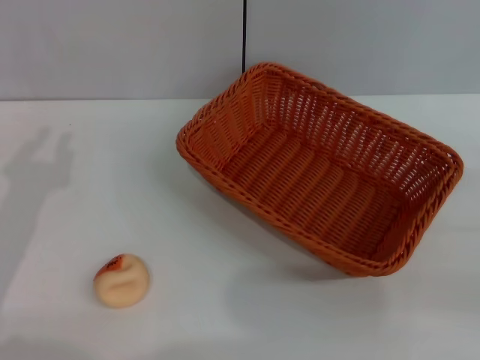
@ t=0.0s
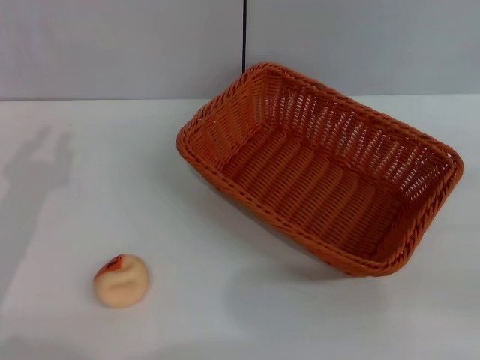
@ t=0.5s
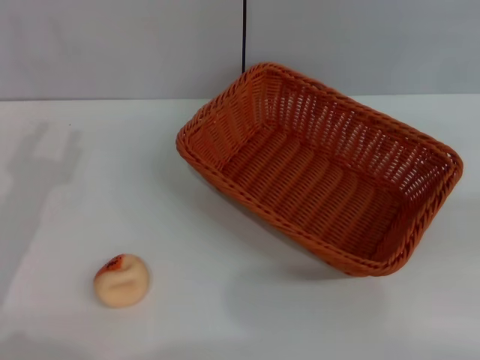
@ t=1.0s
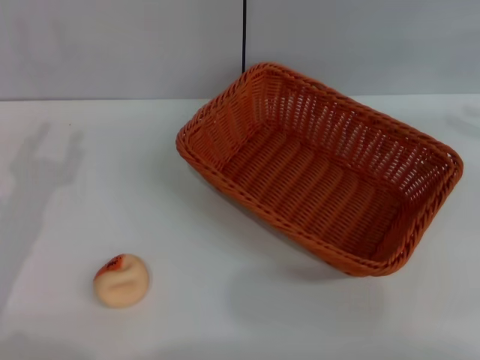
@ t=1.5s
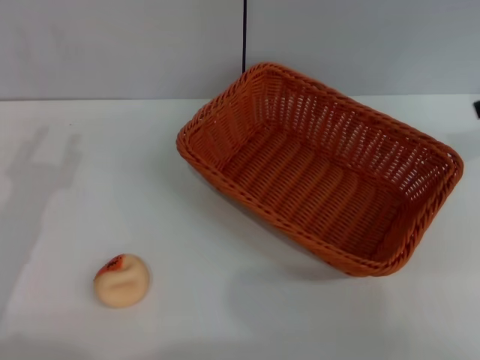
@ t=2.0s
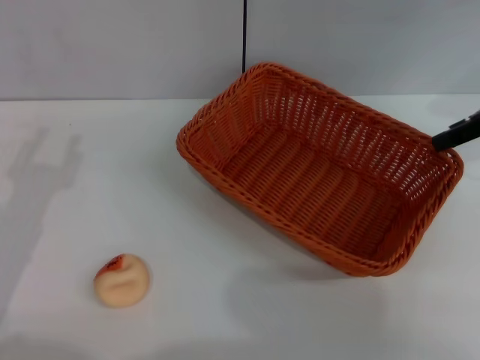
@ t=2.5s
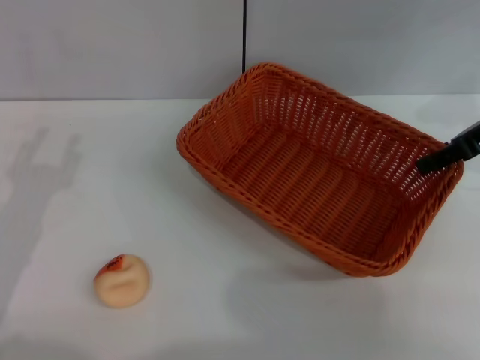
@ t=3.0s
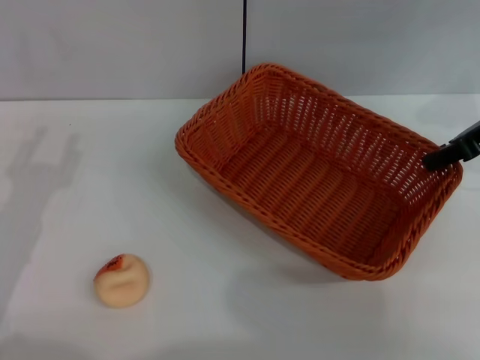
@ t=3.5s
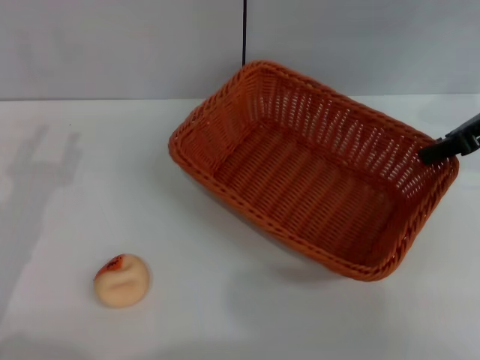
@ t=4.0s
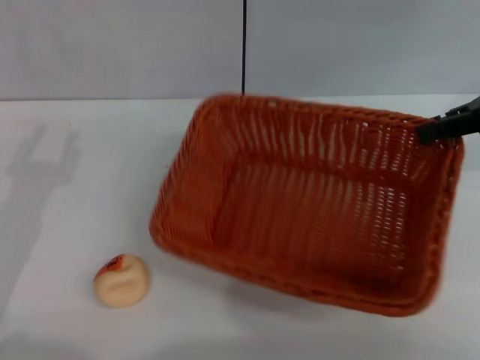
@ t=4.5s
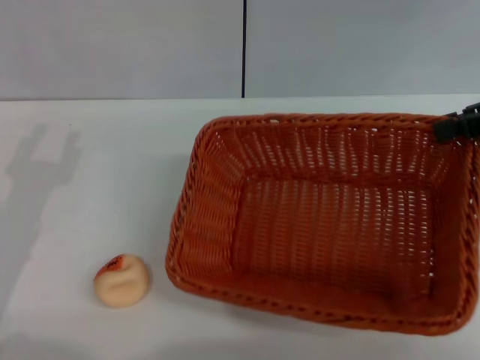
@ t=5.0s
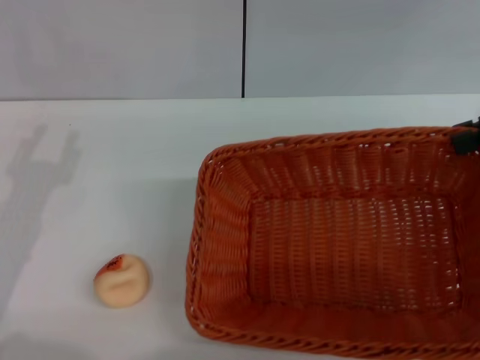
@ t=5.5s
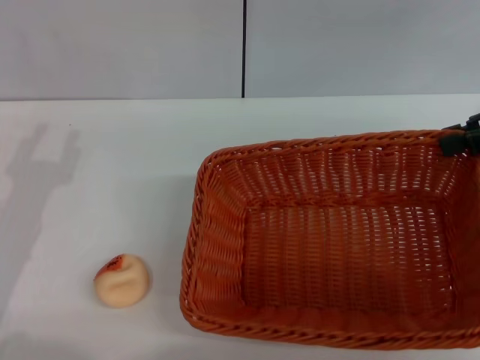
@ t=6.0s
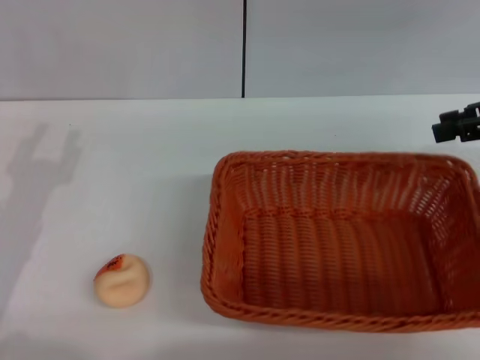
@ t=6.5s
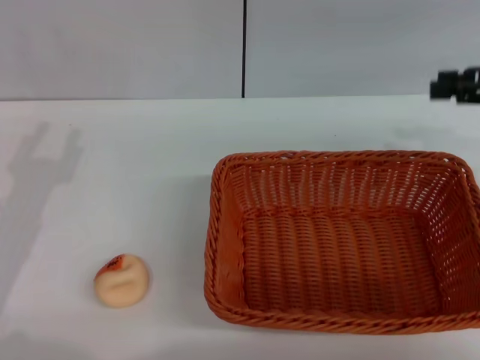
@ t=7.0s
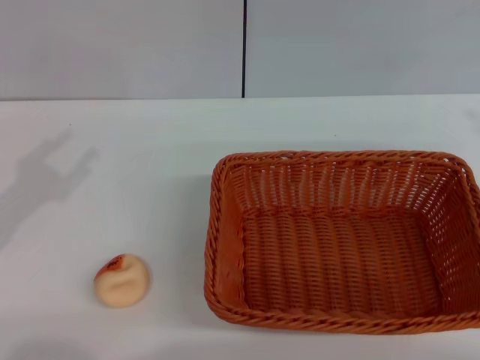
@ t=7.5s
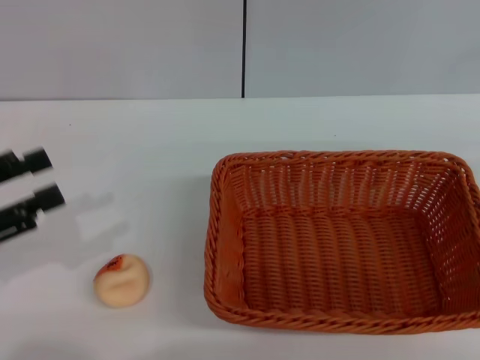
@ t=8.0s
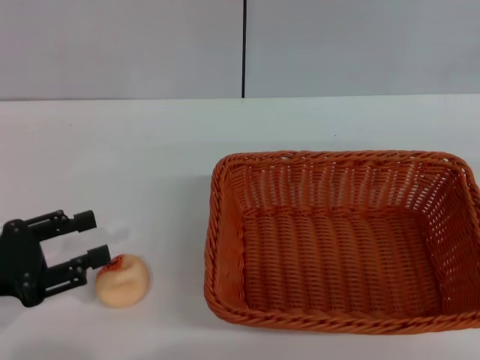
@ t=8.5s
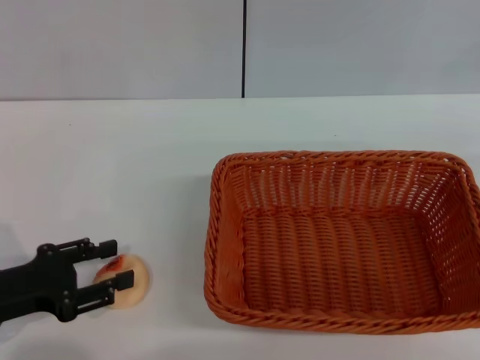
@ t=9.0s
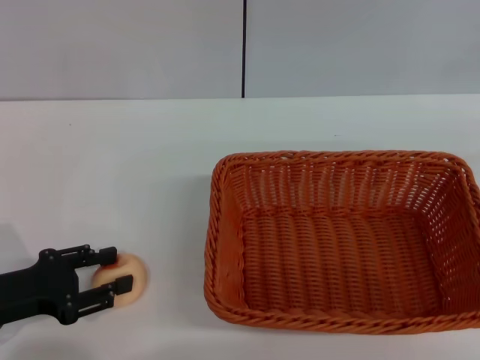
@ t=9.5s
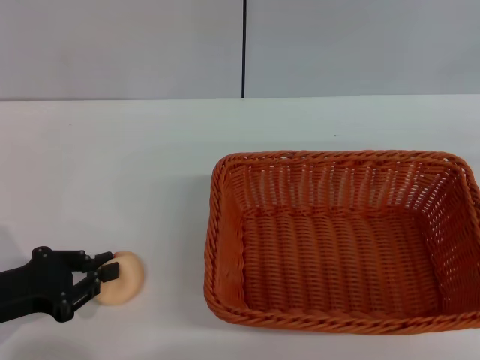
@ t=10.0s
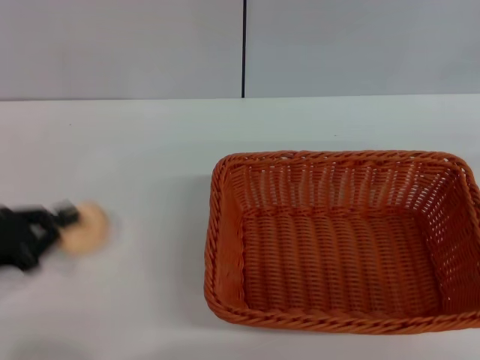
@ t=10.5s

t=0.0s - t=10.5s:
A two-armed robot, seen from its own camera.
Step, t=0.0s - t=6.5s: Move the basket to the center of view with the right gripper.
t=0.0s - t=2.0s: The right gripper is displaced forward and upward by roughly 20 cm.
t=2.0s - t=4.0s: The right gripper travels to the left by some 5 cm, and closes.
t=4.0s - t=6.5s: The right gripper shifts by roughly 5 cm, and opens up.
t=6.5s - t=8.5s: The right gripper heads backward, downward and to the right, covering approximately 15 cm, and opens its fingers.
t=8.5s - t=10.5s: The left gripper closes.

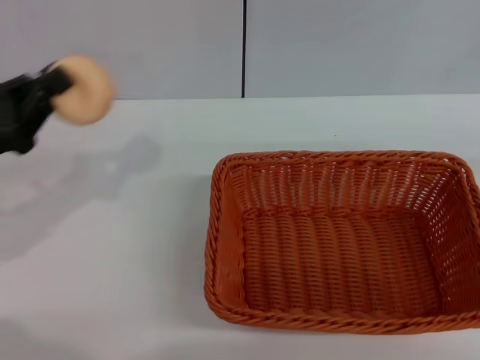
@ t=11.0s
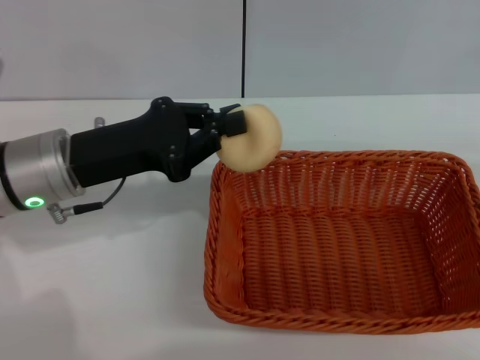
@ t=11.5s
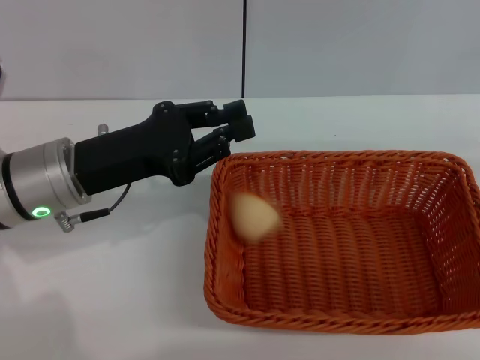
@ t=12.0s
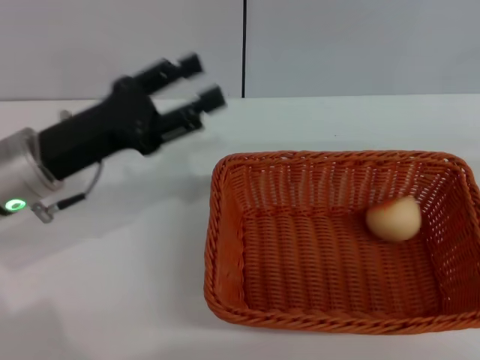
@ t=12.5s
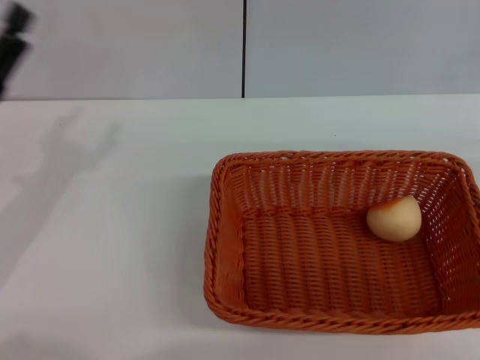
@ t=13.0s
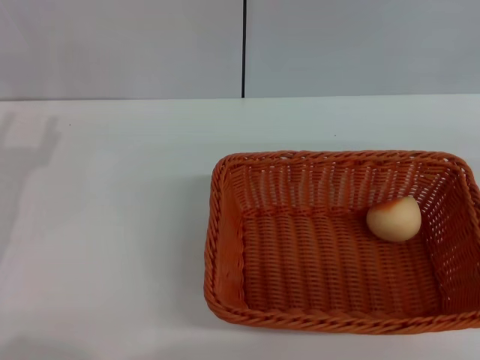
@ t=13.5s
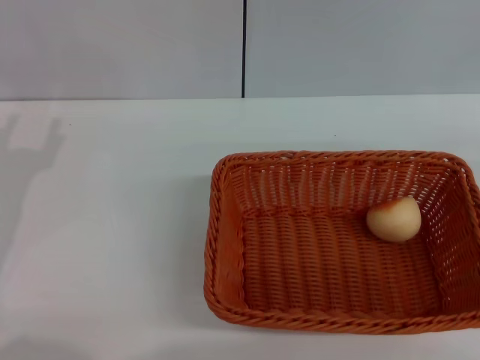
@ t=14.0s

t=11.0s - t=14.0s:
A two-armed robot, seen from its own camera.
Step, t=11.0s - t=12.0s: Place the egg yolk pastry into the basket with the left gripper.
t=11.0s - t=12.5s: The left gripper is displaced to the right and forward by some 15 cm, and opens.
t=12.5s - t=14.0s: The left gripper moves to the left and backward, approximately 10 cm.

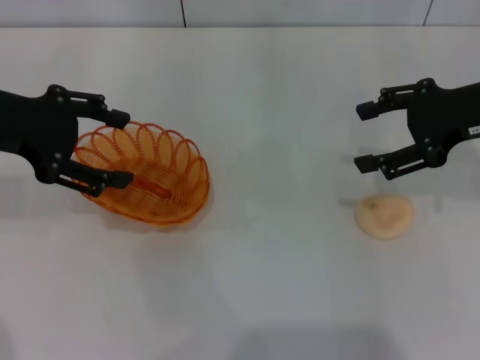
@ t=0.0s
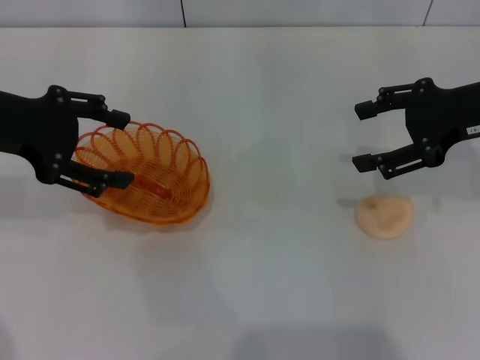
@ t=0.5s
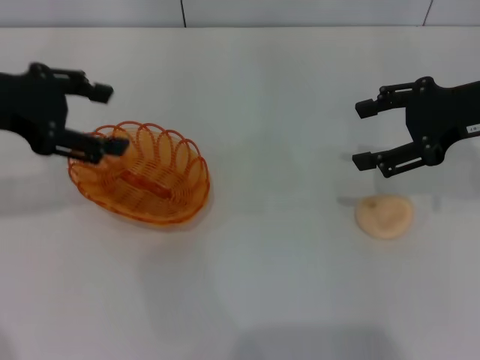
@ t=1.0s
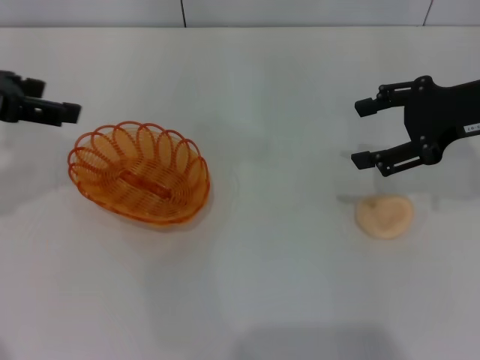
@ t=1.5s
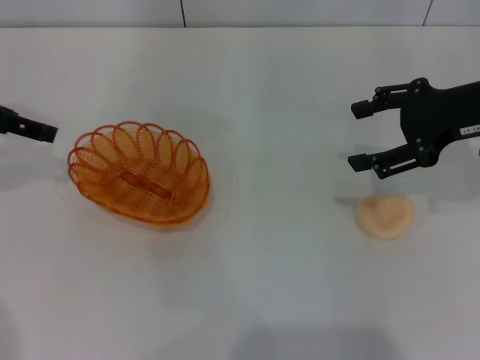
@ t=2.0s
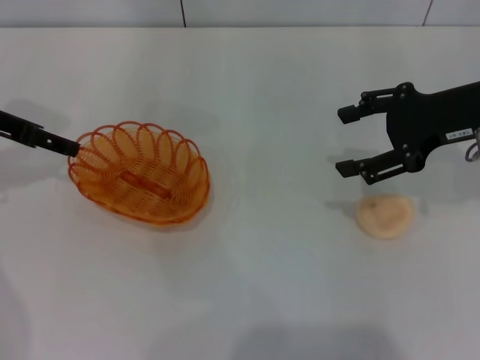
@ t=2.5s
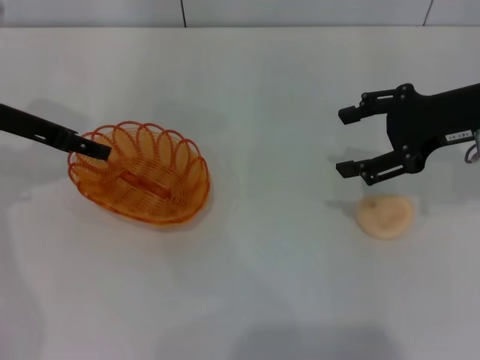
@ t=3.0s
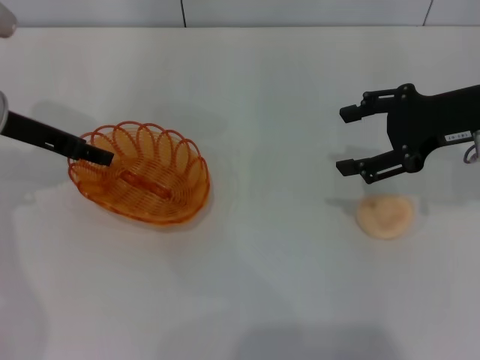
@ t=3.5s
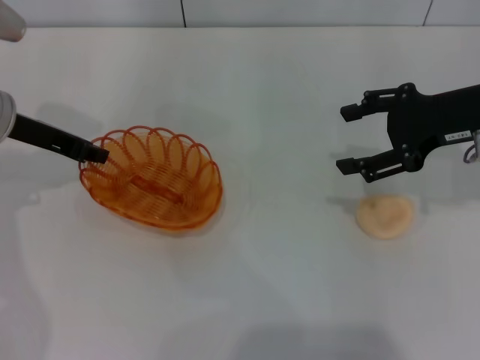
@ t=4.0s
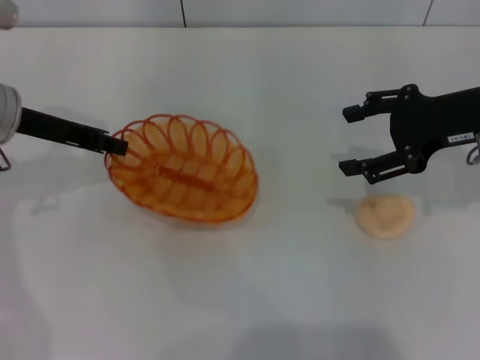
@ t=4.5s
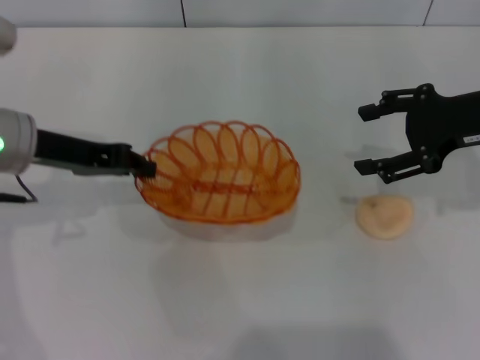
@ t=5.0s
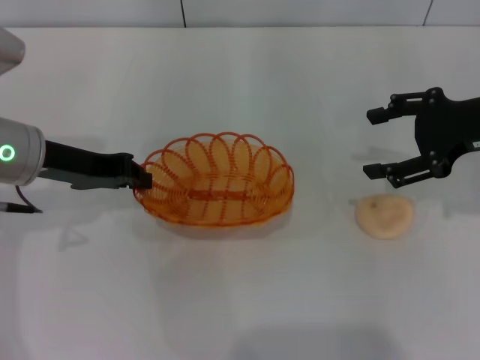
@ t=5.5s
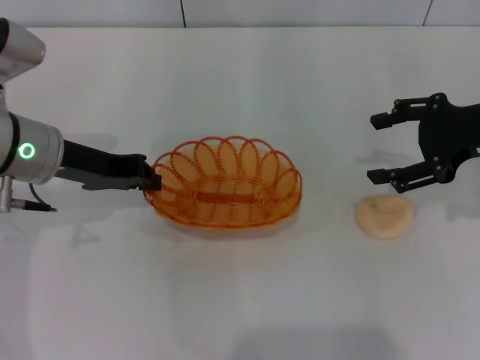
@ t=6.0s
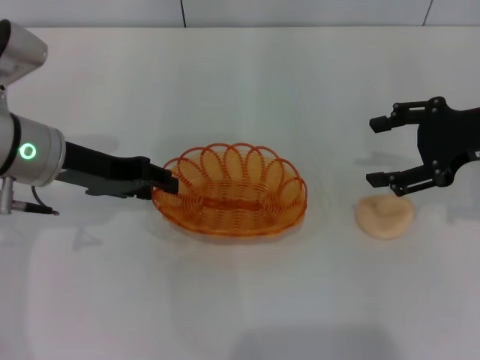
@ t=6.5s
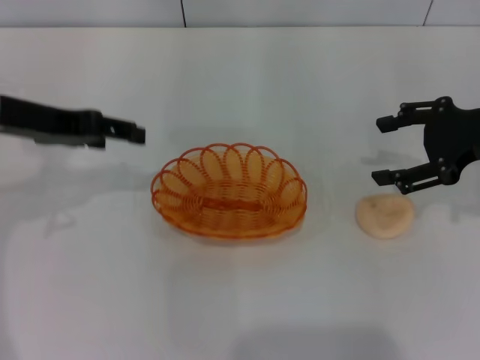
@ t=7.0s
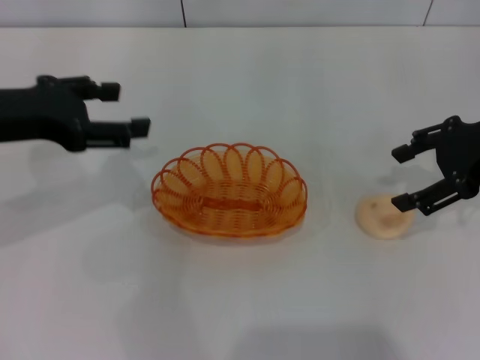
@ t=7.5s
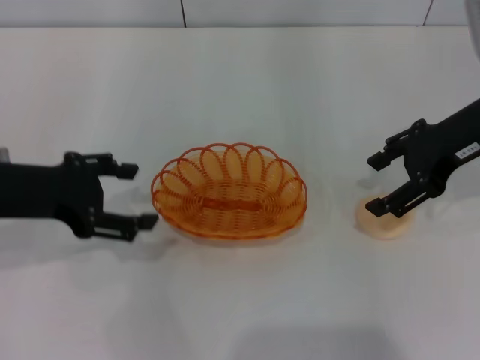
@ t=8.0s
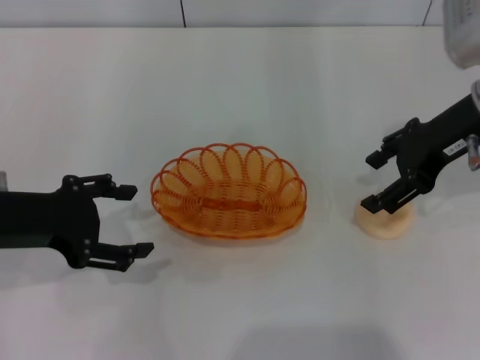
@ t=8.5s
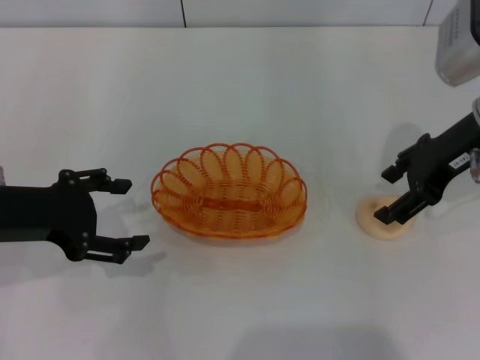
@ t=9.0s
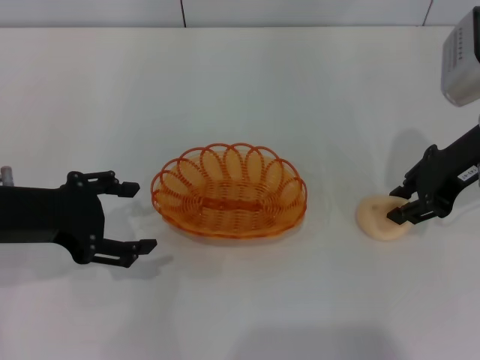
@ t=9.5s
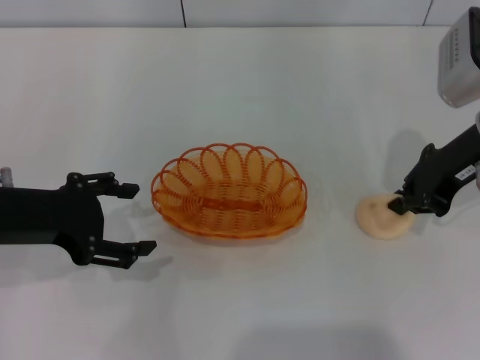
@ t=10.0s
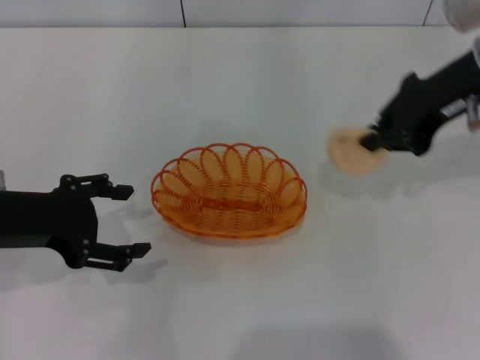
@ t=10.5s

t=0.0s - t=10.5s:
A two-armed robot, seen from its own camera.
Step, t=0.0s - t=5.0s: Pick up the basket with the left gripper.
Step, t=5.5s - t=8.0s: Place the basket in the center of view with the left gripper.
Step, t=8.5s - t=10.0s: Pick up the egg yolk pastry with the right gripper.
t=0.0s - t=2.0s: The left gripper moves approximately 5 cm.
t=2.0s - t=4.0s: The left gripper heads downward and to the right, covering approximately 10 cm, and closes up.
t=4.0s - t=6.5s: The left gripper heads to the right, covering some 5 cm.
t=6.5s - t=8.5s: The right gripper is displaced to the left by about 5 cm. The left gripper travels backward and to the left by some 10 cm, and opens up.
t=8.5s - t=10.5s: The right gripper changes place by roughly 5 cm, and closes its fingers.

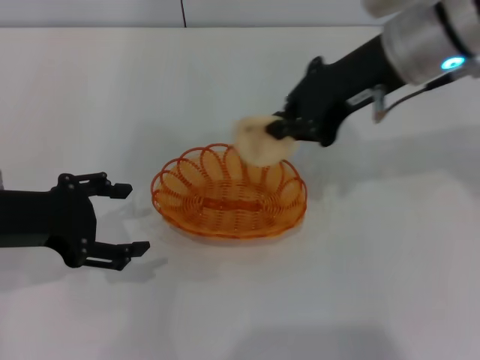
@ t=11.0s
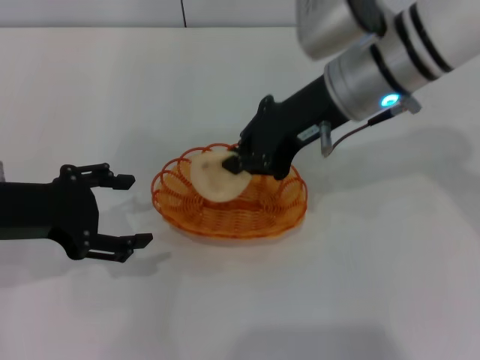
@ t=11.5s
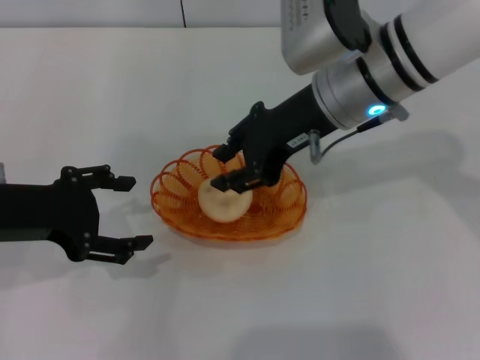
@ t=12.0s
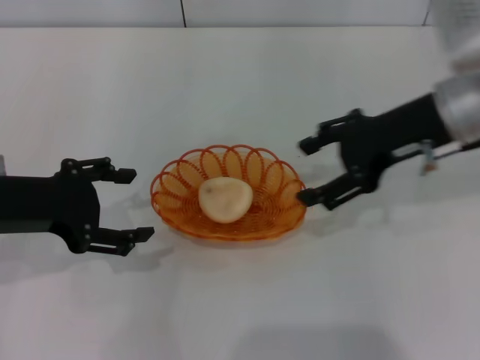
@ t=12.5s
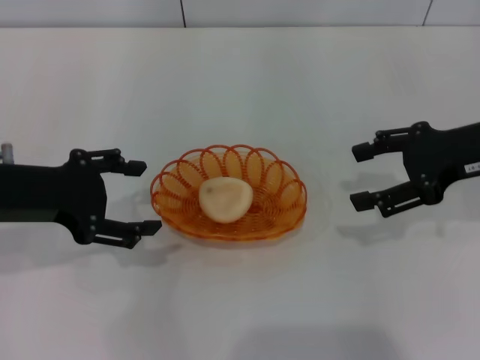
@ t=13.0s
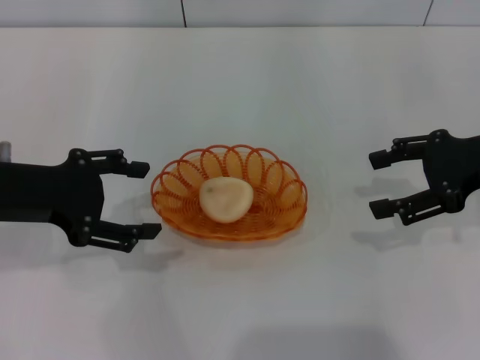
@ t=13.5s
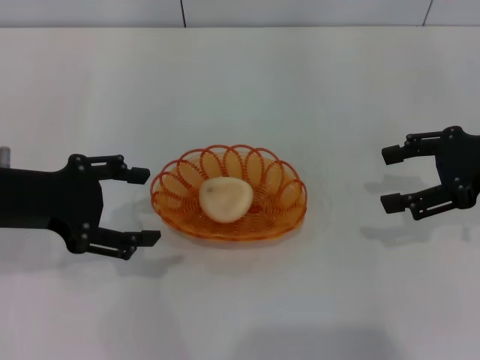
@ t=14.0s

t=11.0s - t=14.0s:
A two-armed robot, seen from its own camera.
Step, t=11.0s - t=12.5s: Place the egg yolk pastry into the basket with the right gripper.
t=11.0s - t=12.5s: The right gripper heads to the right and downward, covering roughly 10 cm, and opens its fingers.
t=12.5s - t=14.0s: The right gripper shifts about 10 cm to the right.
